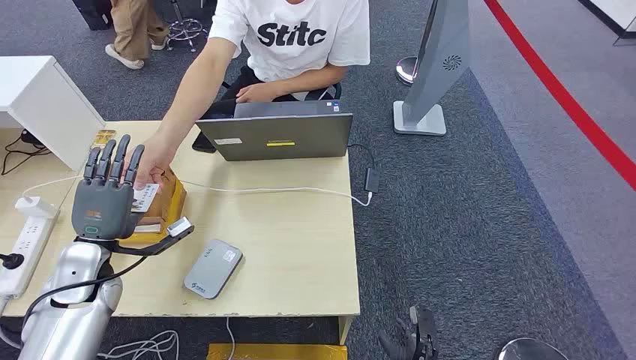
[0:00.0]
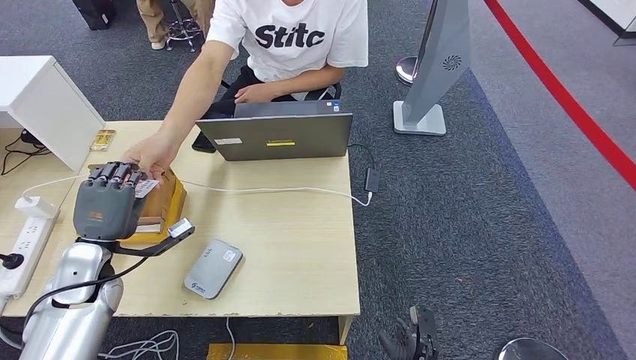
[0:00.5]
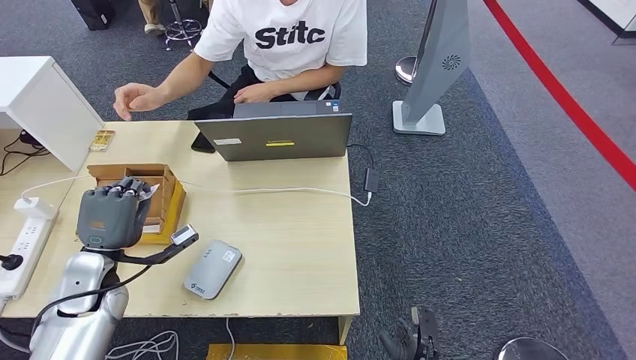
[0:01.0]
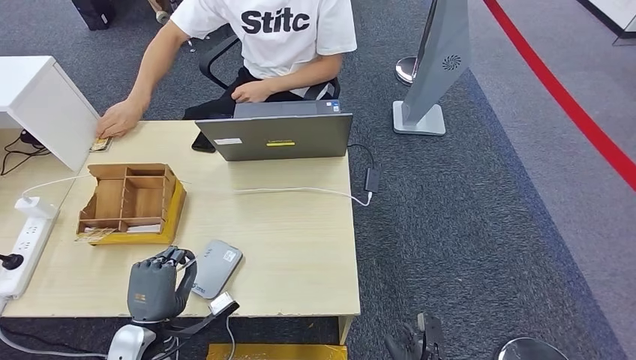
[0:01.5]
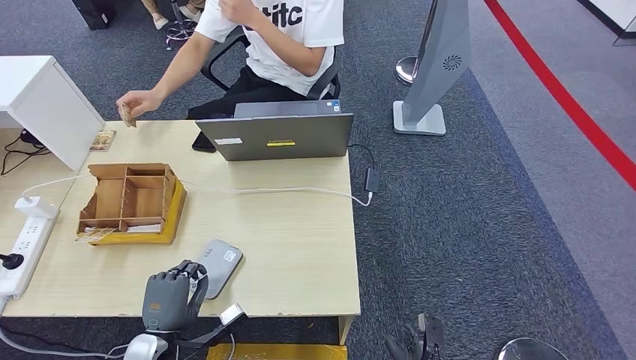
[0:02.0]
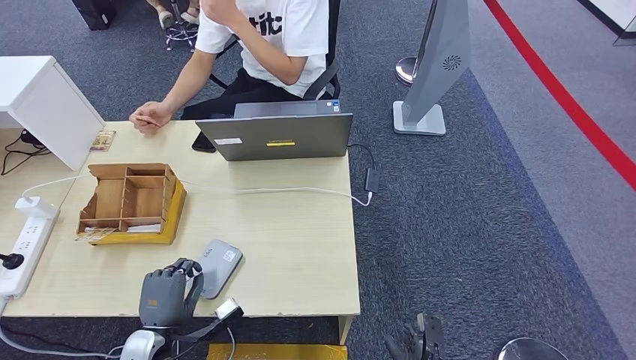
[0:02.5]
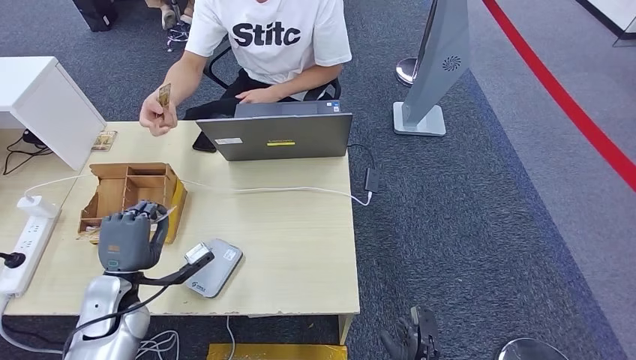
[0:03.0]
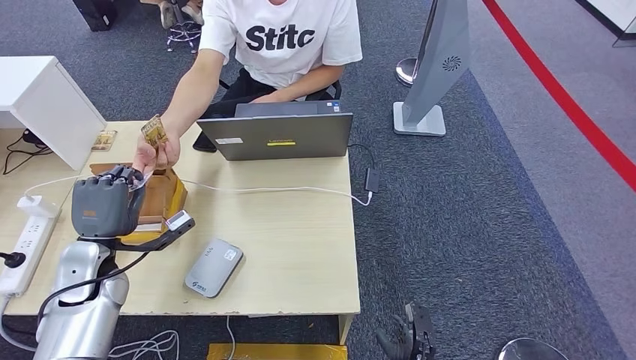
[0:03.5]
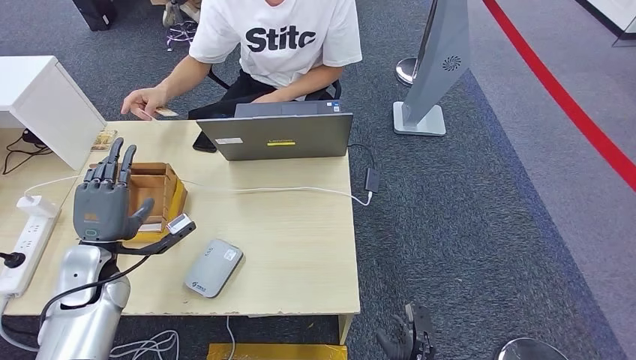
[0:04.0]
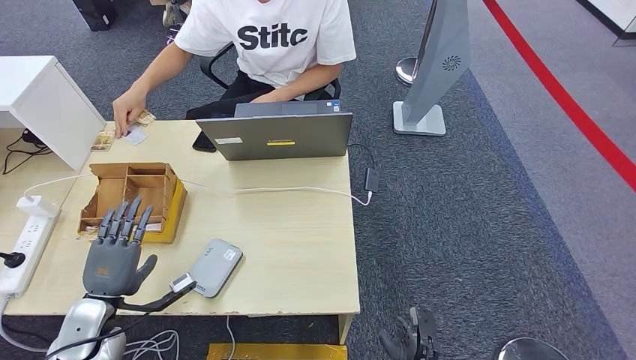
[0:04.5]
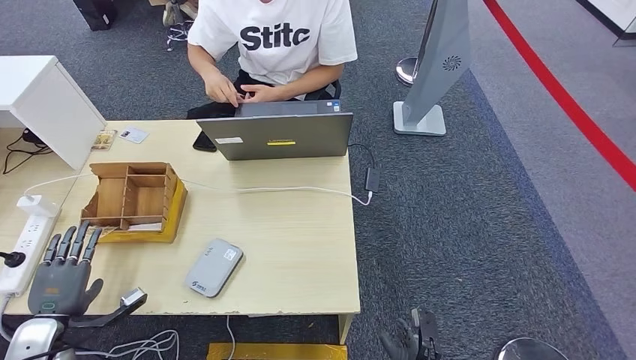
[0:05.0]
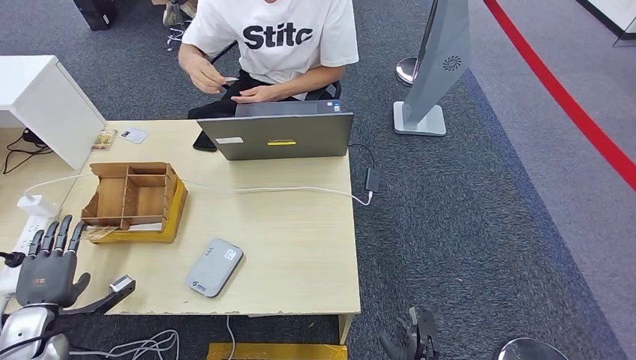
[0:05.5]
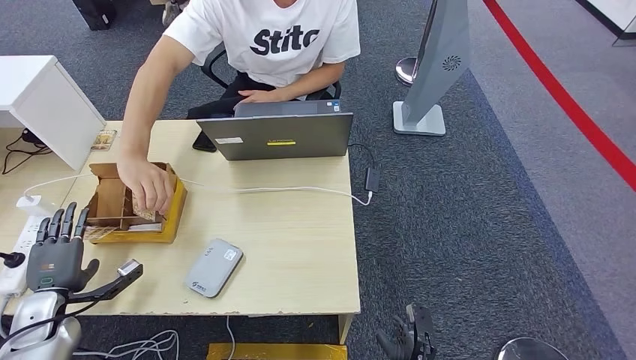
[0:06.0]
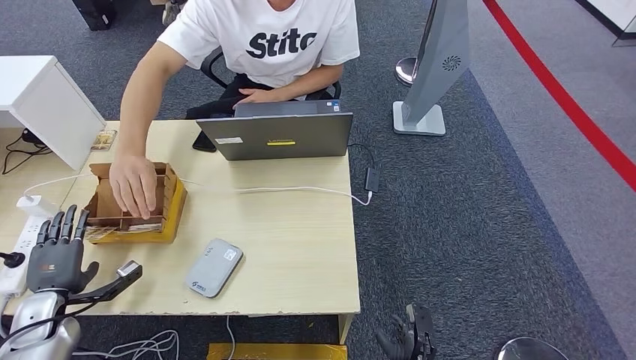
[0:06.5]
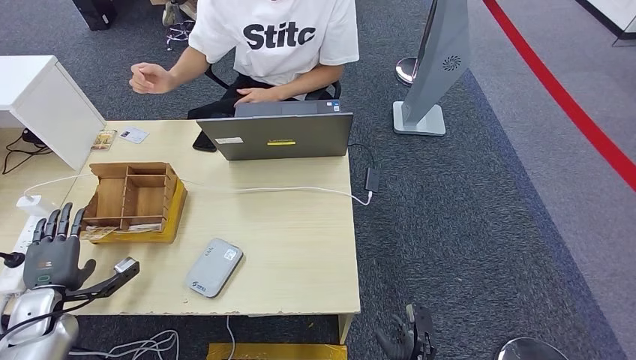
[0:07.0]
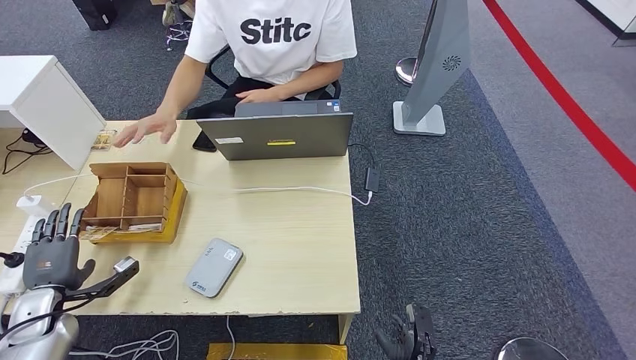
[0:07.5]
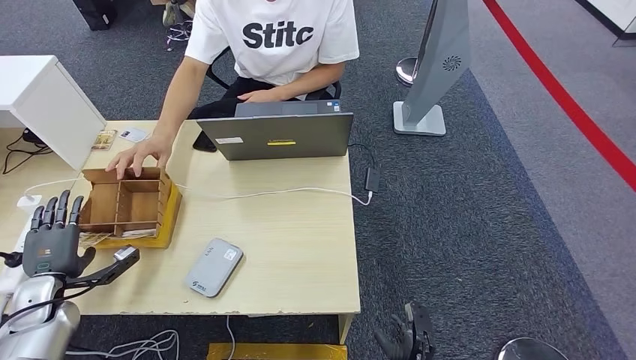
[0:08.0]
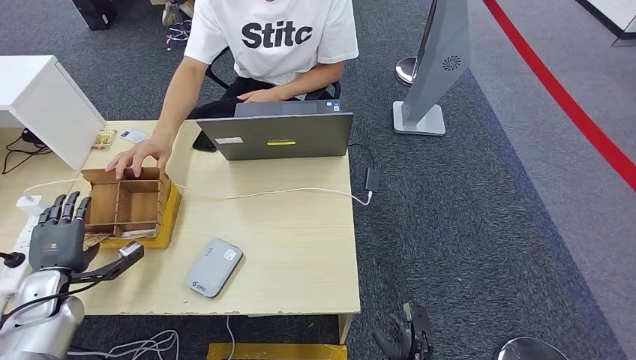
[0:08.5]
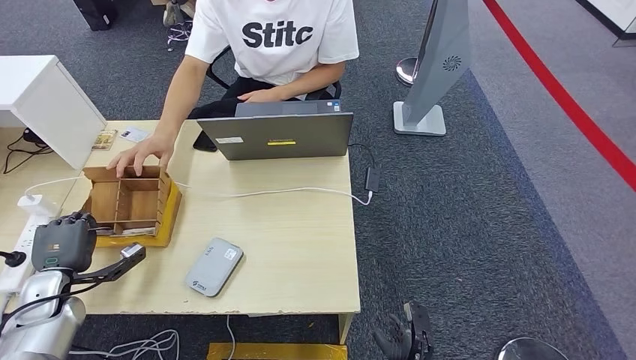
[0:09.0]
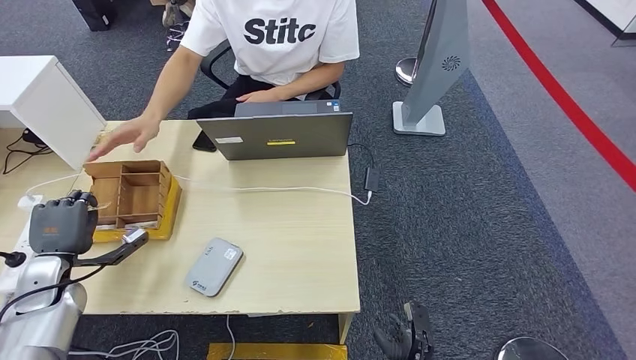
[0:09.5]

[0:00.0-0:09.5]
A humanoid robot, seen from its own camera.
Step, 0:00.0 to 0:02.5: Take the ID card from the person's hand.
Step, 0:03.5 to 0:04.5: Hand the ID card to the person.
0:02.0 to 0:04.0: The left hand travels forward, upward and to the left by about 20 cm.
0:04.0 to 0:05.5: The left hand moves to the left, downward and backward, roughly 20 cm.
0:05.5 to 0:07.5: There are only small adjustments of the hands.
0:07.5 to 0:09.5: The left hand ends up approximately 5 cm from where it was.

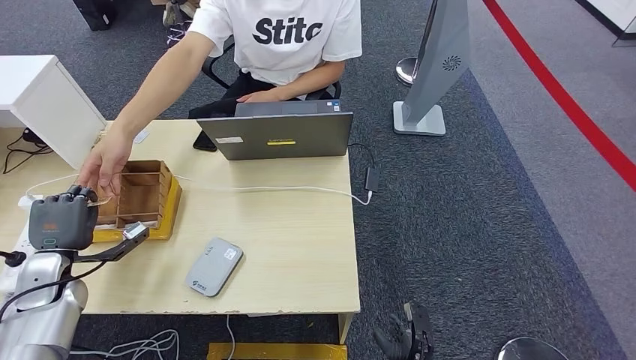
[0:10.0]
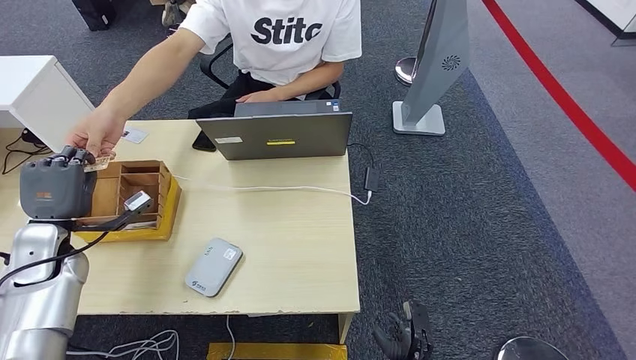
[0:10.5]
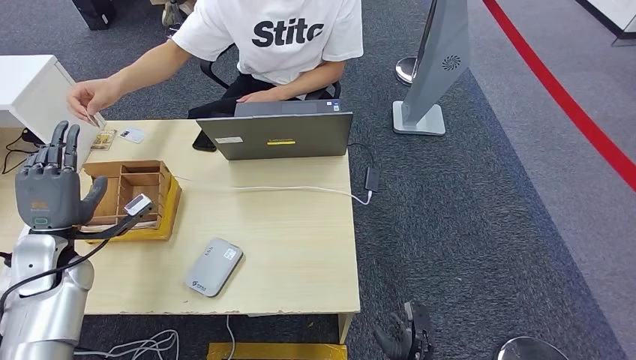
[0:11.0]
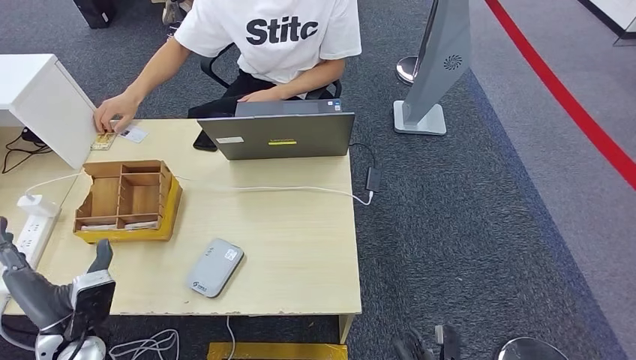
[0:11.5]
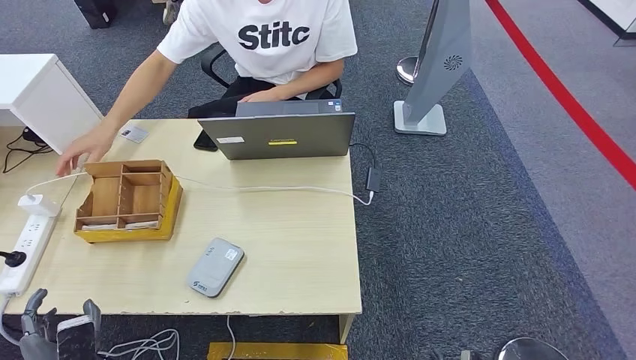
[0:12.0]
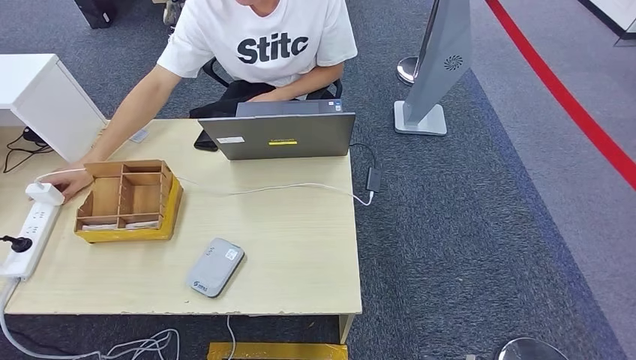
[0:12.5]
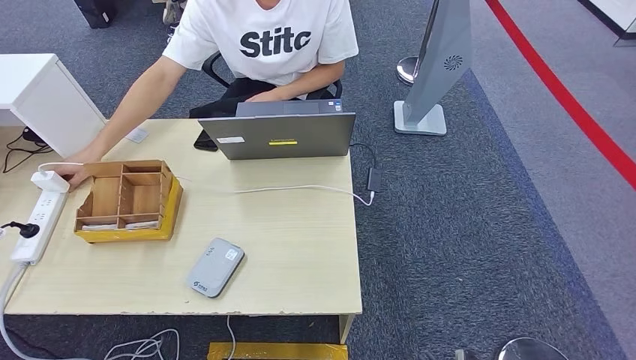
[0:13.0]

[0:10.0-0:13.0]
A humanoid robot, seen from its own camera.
Step, 0:10.5 to 0:13.0: Hand the room key to the person.
0:10.0 to 0:11.5: The left hand travels backward and to the right by some 15 cm. Meanwhile the right hand moves approximately 5 cm.
0:11.5 to 0:13.0: The right hand ends up roughly 5 cm from where it was. The left hand heads downward and backward, covering roughly 30 cm.

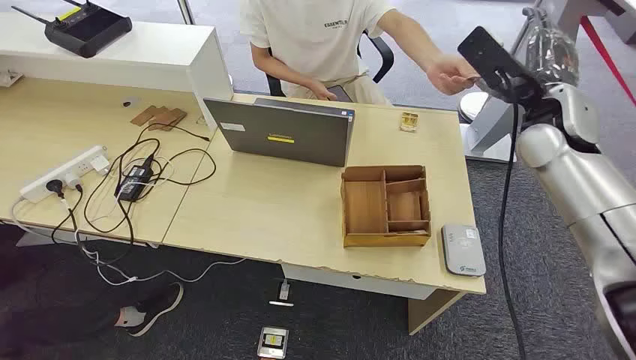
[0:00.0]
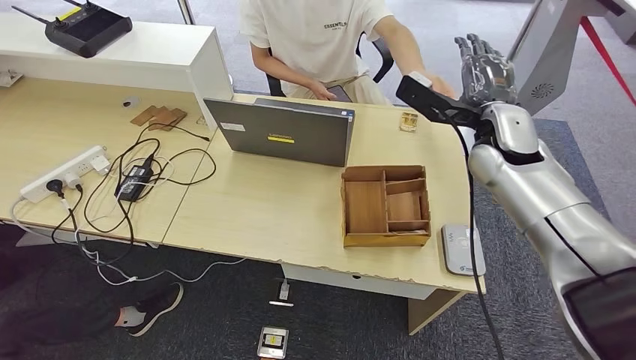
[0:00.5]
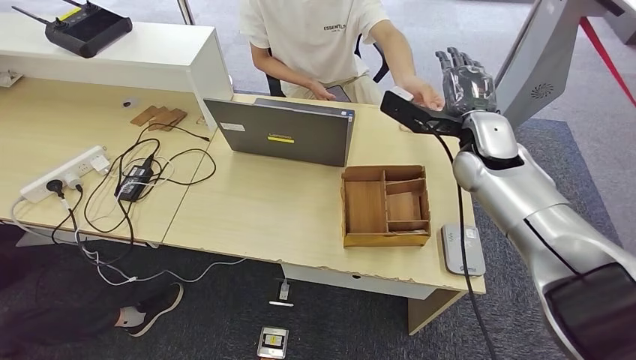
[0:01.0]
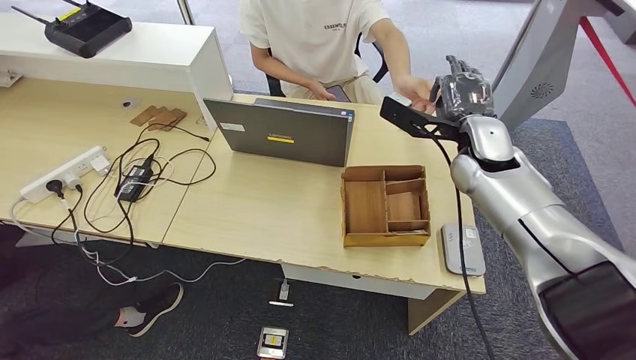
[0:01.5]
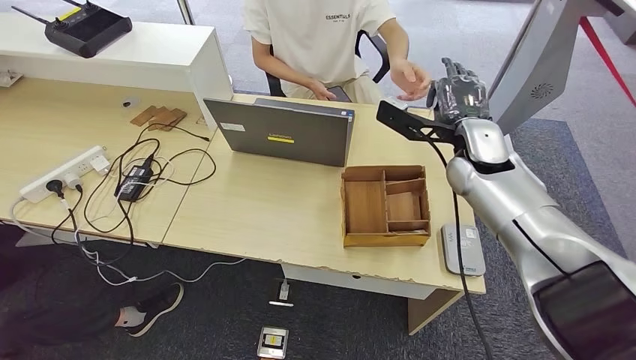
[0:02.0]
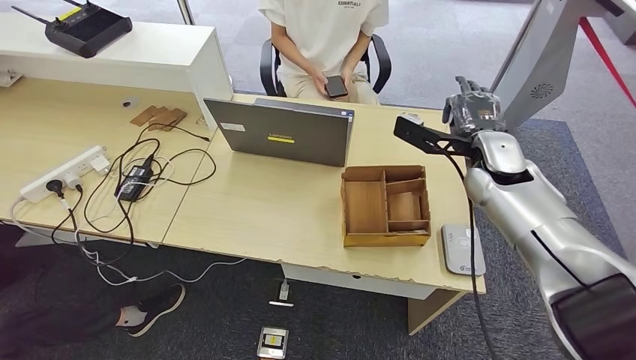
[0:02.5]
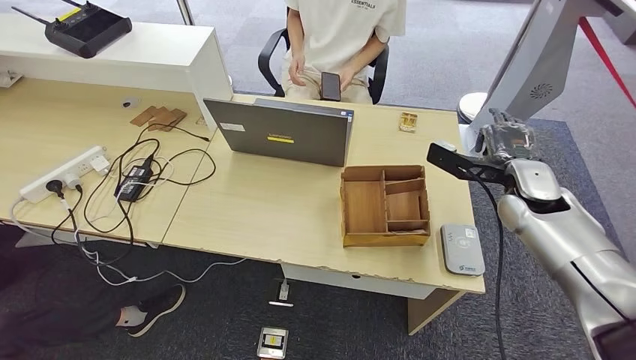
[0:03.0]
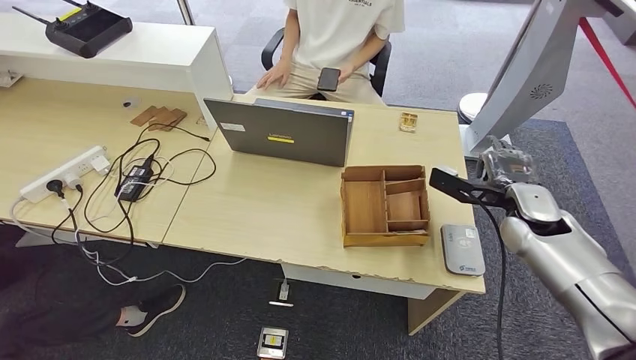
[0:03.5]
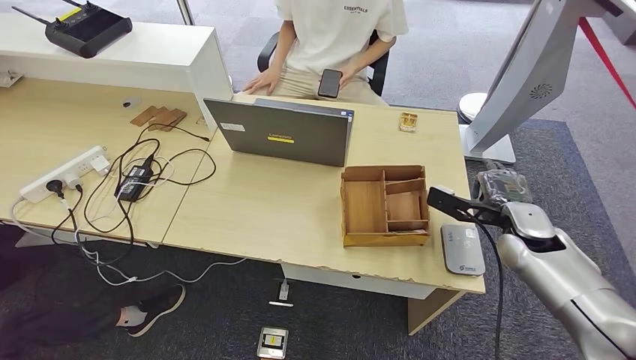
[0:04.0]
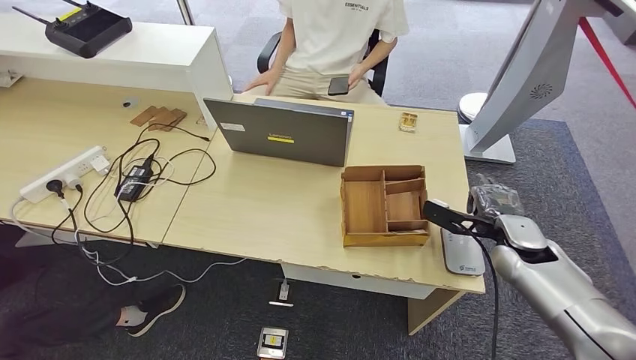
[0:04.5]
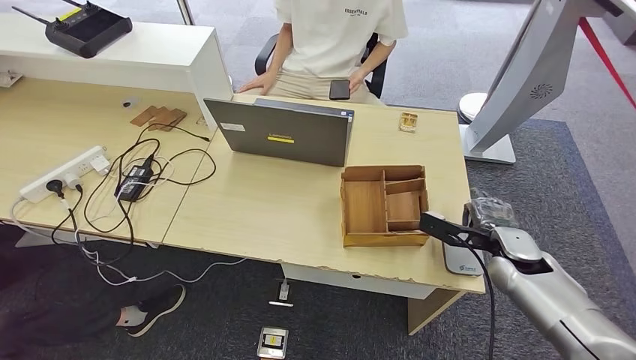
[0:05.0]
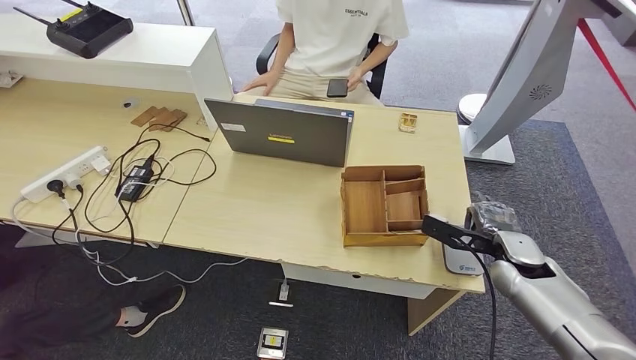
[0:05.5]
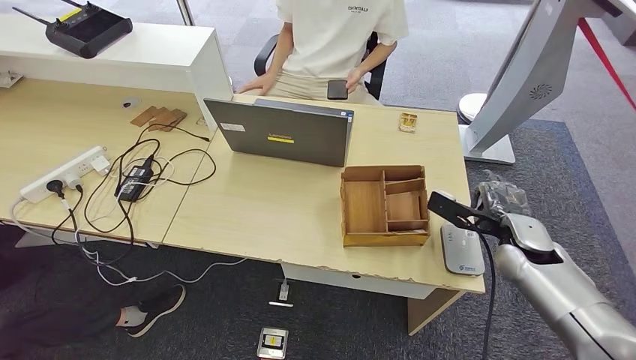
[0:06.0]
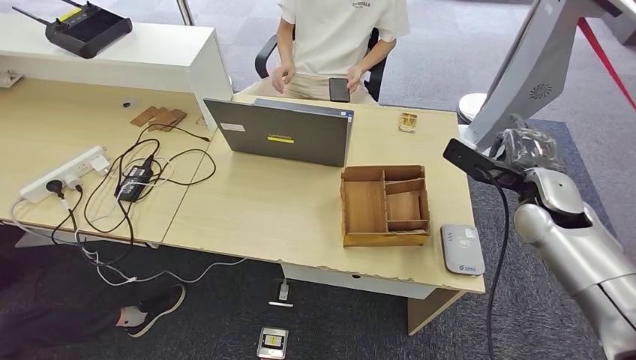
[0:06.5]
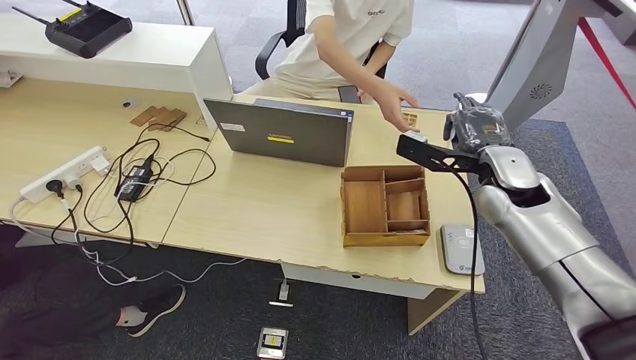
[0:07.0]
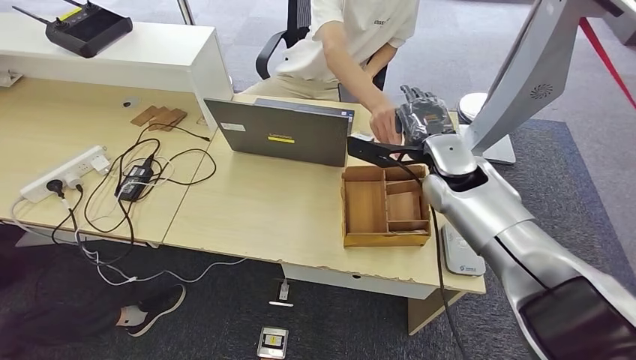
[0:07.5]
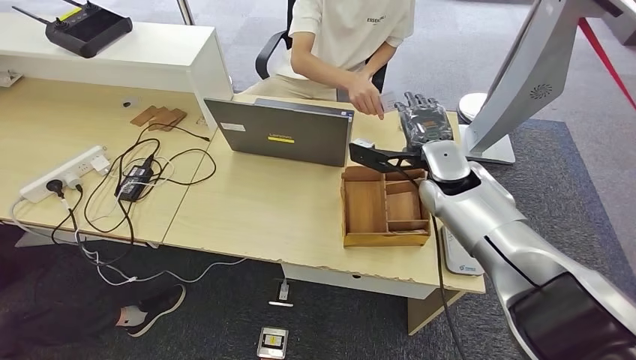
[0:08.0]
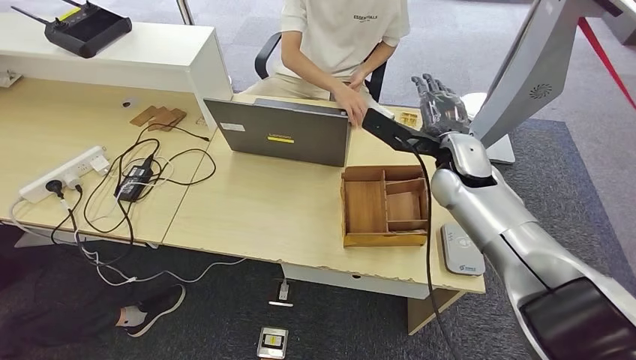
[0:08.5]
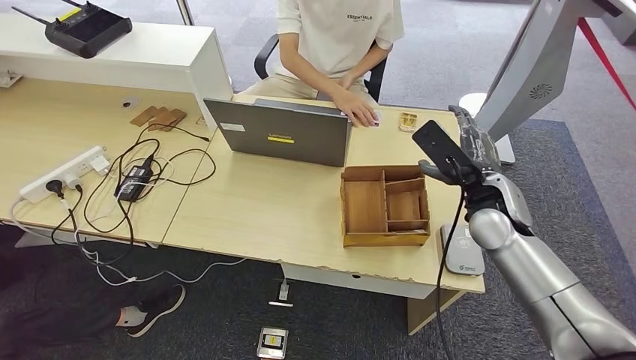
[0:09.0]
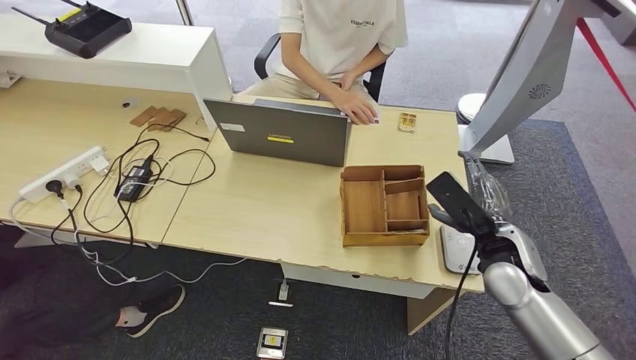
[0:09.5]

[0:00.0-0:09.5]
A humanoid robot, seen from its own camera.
Step, 0:00.0 to 0:02.5: Take the ID card from the person's hand.
Step, 0:03.0 to 0:06.0: Place the ID card on the card reader.
Step, 0:06.5 to 0:09.0: Hand the ID card to the person.
0:02.0 to 0:04.0: The right hand is displaced downward, to the right and backward by some 20 cm.
0:04.0 to 0:05.5: The right hand changes place by approximately 5 cm.
0:05.5 to 0:07.5: The right hand heads to the left, upward and forward, covering about 25 cm.
0:07.5 to 0:09.5: The right hand shifts approximately 15 cm backward, downward and to the right.
